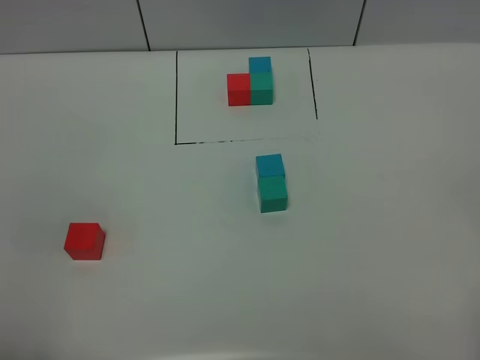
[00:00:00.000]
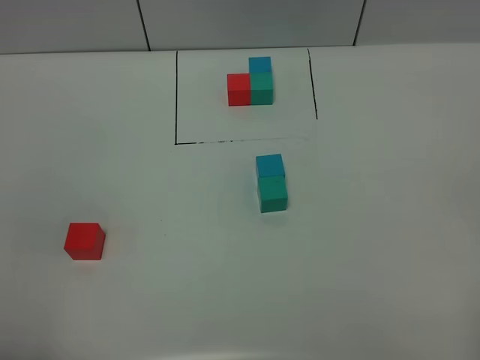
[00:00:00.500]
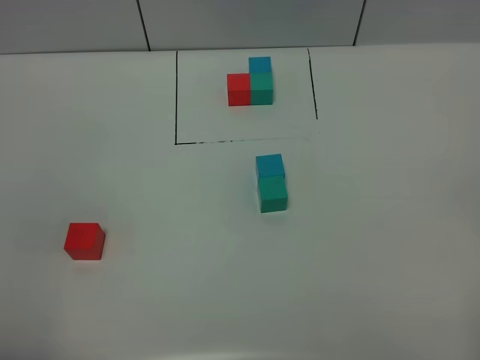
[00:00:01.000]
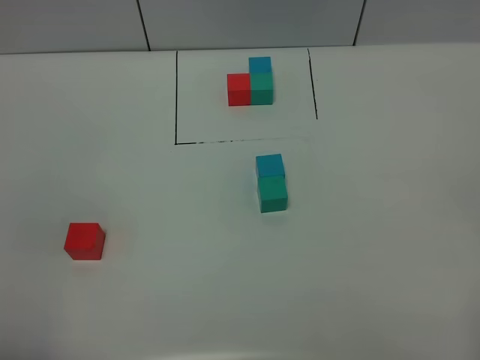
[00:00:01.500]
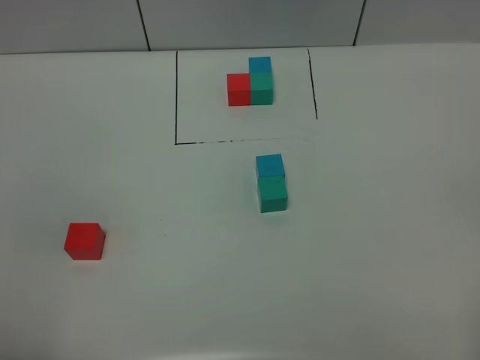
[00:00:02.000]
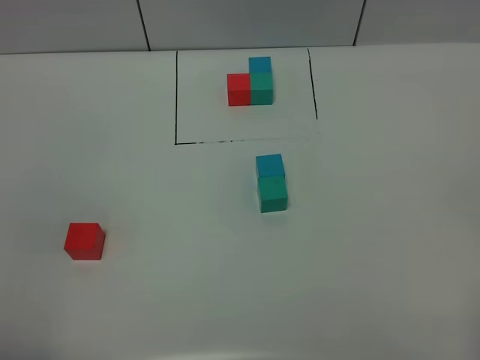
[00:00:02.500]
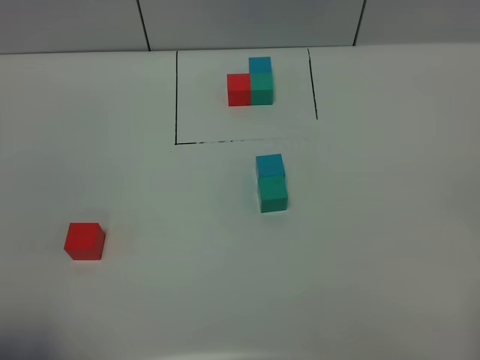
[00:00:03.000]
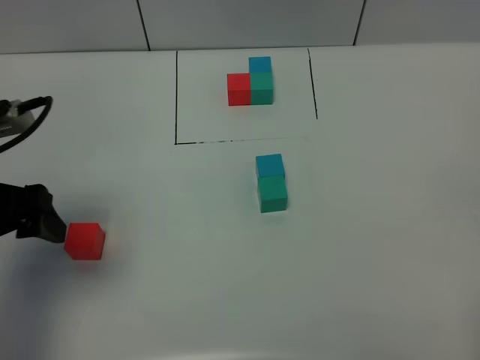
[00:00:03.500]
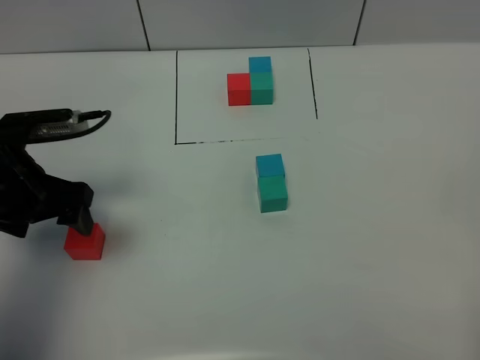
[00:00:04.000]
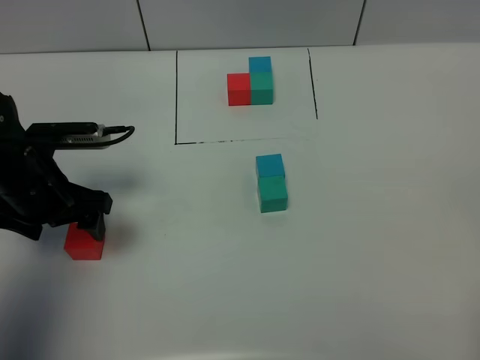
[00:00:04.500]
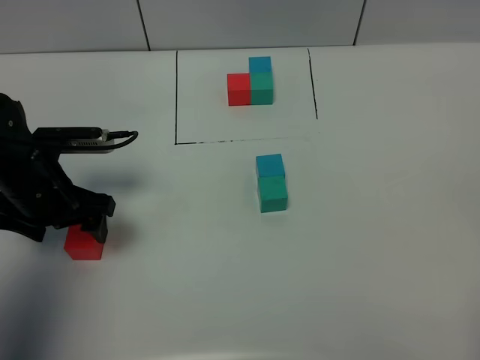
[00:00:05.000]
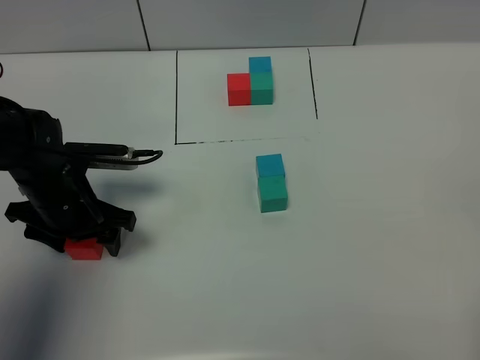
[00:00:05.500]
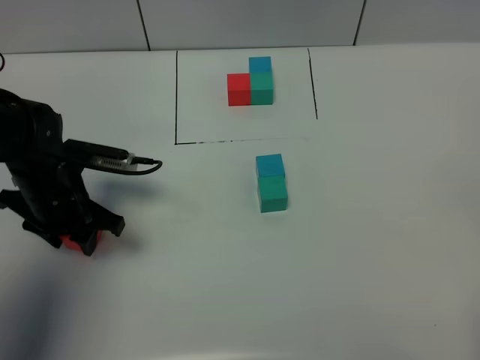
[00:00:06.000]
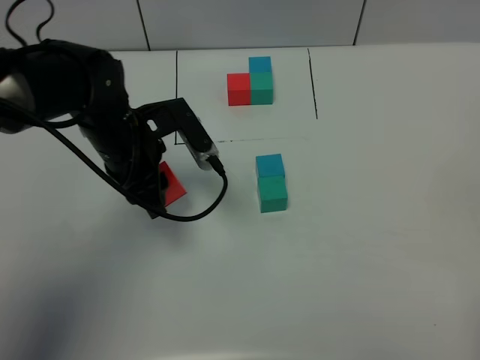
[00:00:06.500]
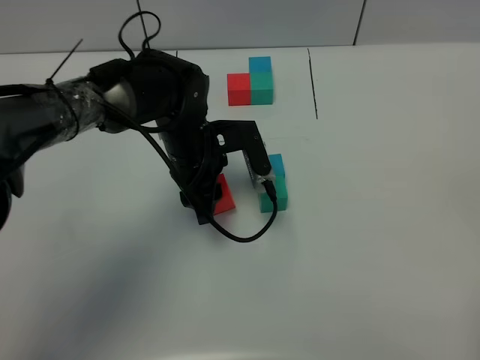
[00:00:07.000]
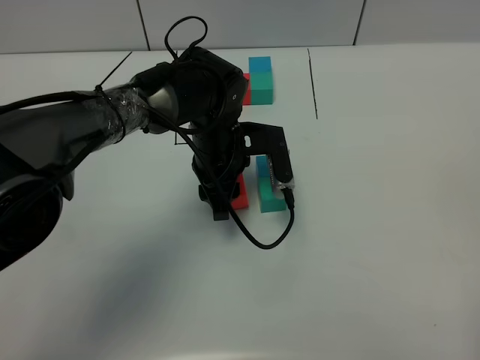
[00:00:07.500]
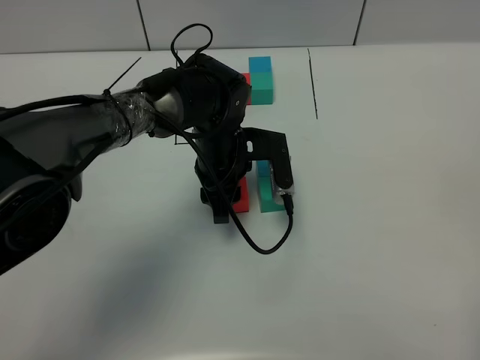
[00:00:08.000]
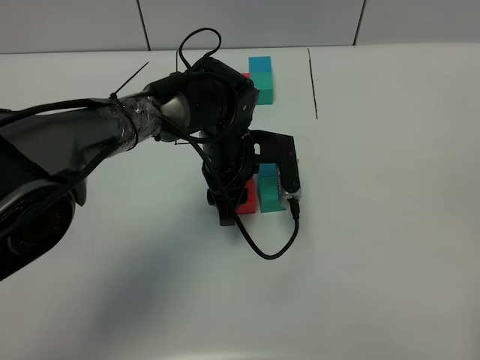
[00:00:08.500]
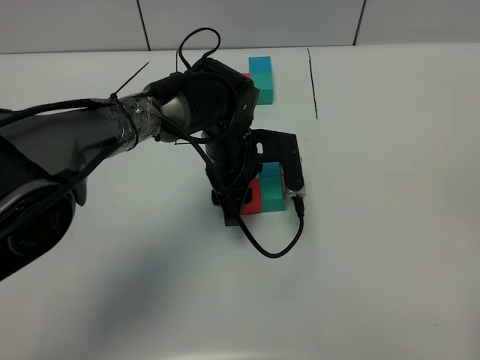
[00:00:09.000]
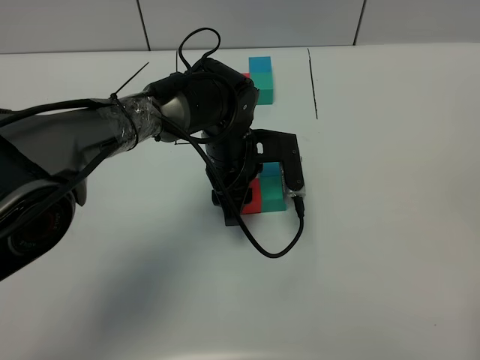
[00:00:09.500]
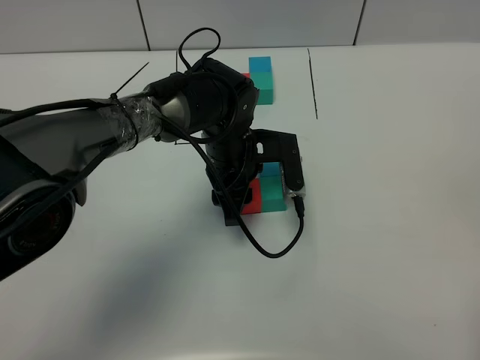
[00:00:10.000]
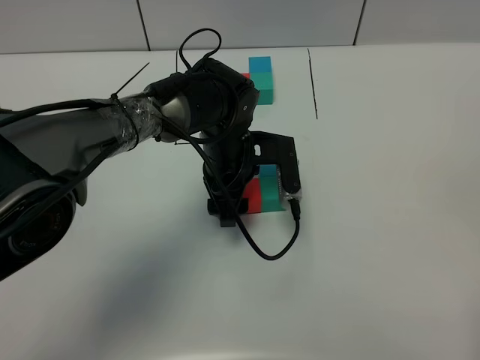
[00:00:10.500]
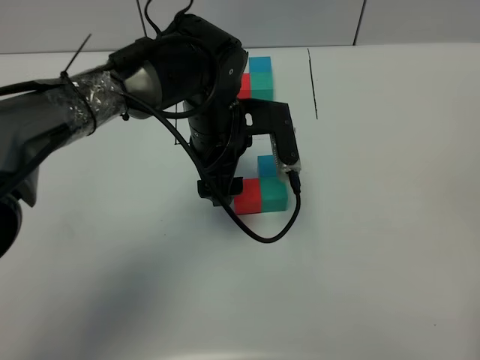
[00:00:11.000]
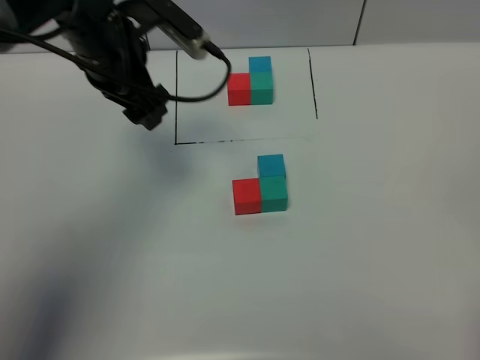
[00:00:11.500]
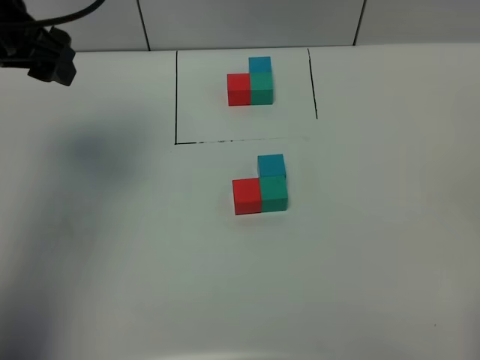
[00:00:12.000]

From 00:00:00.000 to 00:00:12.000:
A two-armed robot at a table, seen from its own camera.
Task of the whole recording: According to the building block template in front, assemble the scattered blocks together.
Step, from 00:00:00.000 to 00:00:10.000: Put the red build block on the left of the green build block.
From 00:00:00.000 to 00:00:02.000: Both grippers stay put.
From 00:00:02.000 to 00:00:04.000: The left gripper heads forward, covering approximately 30 cm.
From 00:00:04.000 to 00:00:06.000: The left gripper heads downward, covering some 5 cm, and closes.
From 00:00:06.000 to 00:00:08.000: The left gripper goes some 20 cm to the right.
From 00:00:08.000 to 00:00:10.000: The two grippers keep their place.
From 00:00:10.000 to 00:00:12.000: The left gripper travels to the left and upward by approximately 30 cm, and opens.

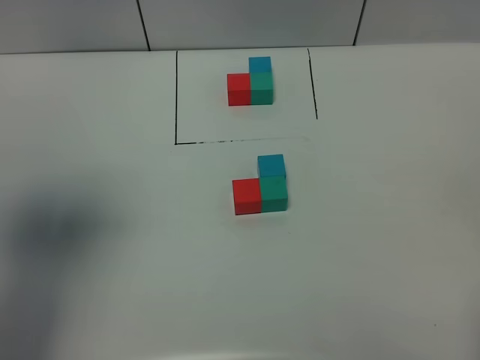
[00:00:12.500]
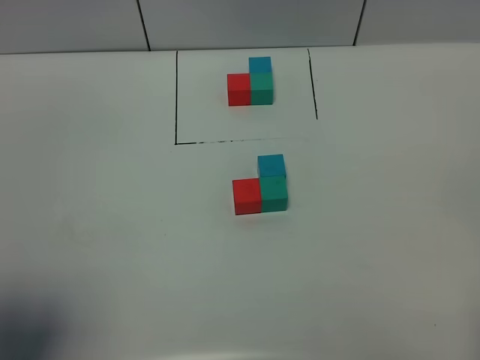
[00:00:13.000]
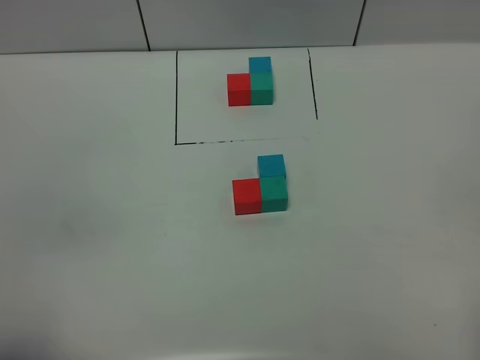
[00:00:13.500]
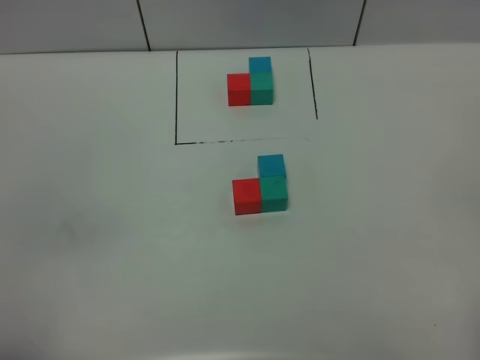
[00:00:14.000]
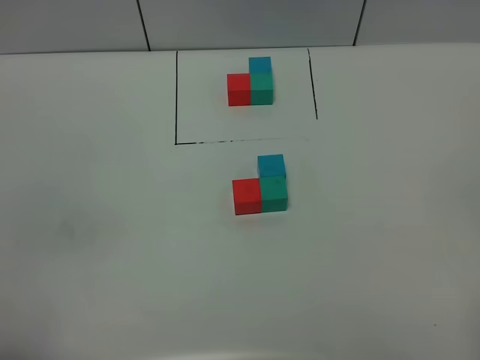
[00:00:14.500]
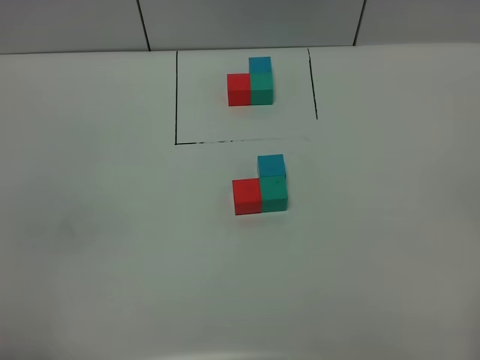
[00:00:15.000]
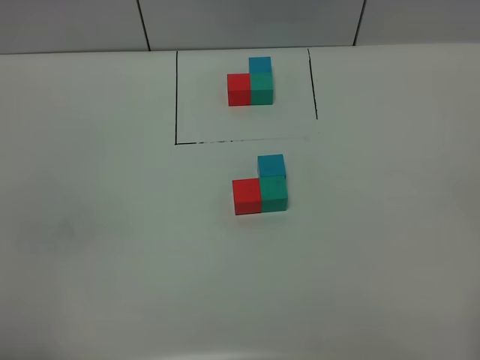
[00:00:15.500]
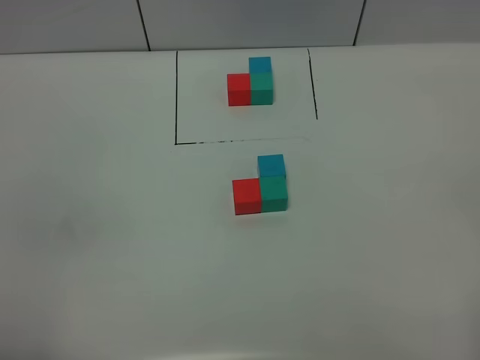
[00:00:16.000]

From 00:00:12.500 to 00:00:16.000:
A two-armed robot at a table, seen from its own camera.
Task of the whole recording: According to the building block template in front, assemble the scattered blocks together.
From 00:00:12.500 to 00:00:14.500: The left gripper heads backward and downward, covering about 25 cm.
